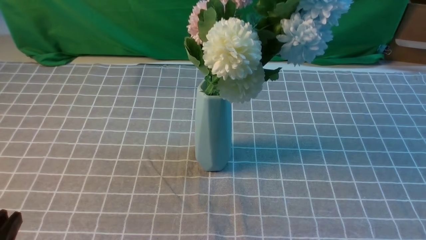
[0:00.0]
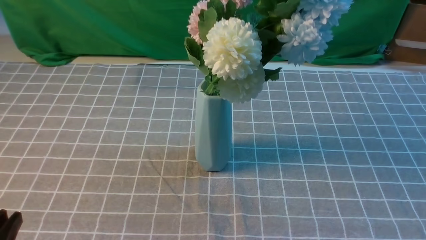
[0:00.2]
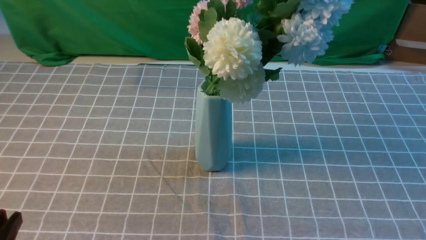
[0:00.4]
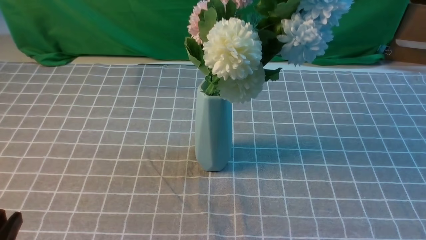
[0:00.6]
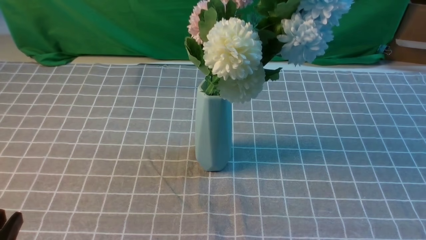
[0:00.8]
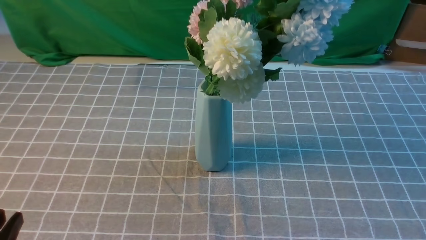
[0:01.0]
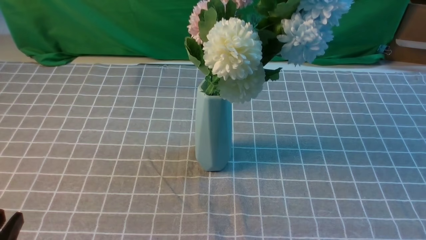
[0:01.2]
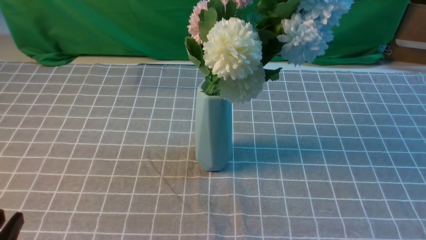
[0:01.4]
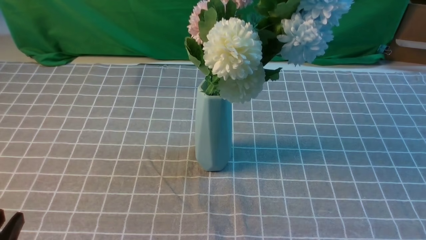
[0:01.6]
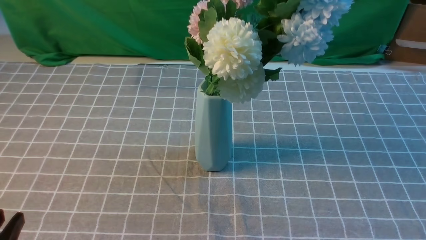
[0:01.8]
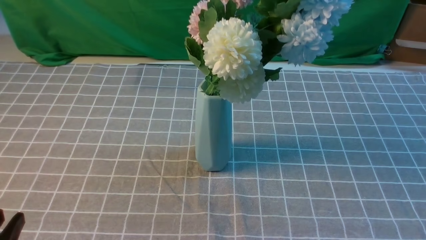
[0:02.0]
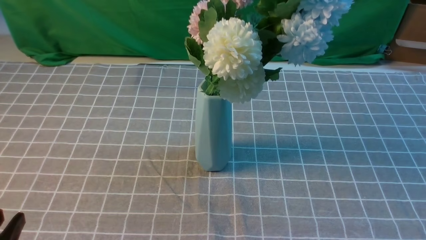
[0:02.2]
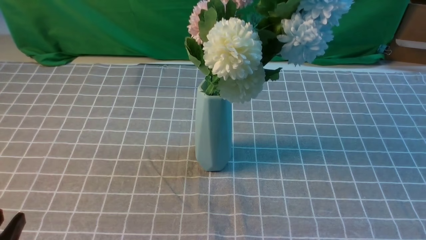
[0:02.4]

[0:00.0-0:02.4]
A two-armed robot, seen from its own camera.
Task of the whole recording: insert the flowers into the vase on the table with the grey tablecloth.
0:01.2 to 0:02.4: The two grippers keep their place.
